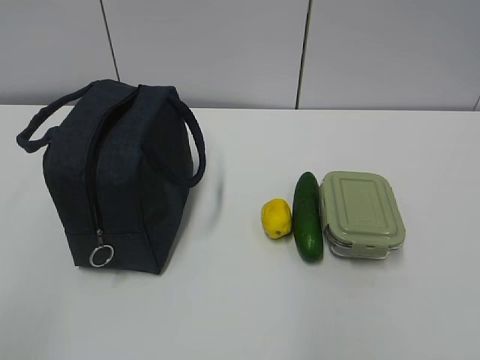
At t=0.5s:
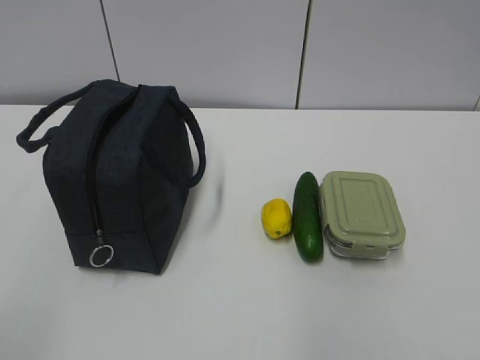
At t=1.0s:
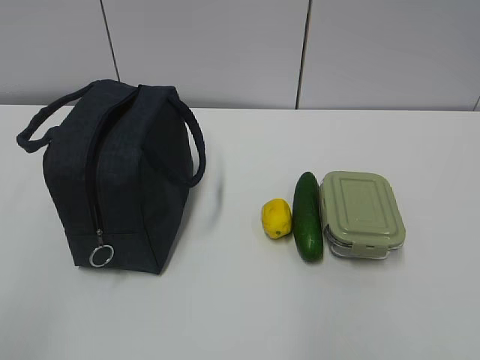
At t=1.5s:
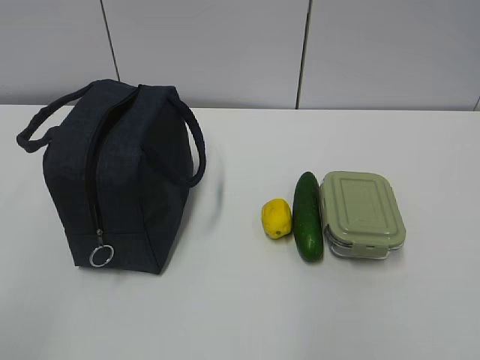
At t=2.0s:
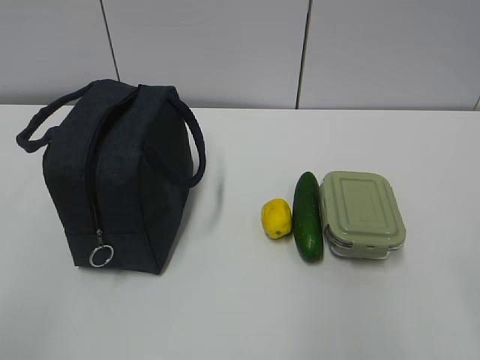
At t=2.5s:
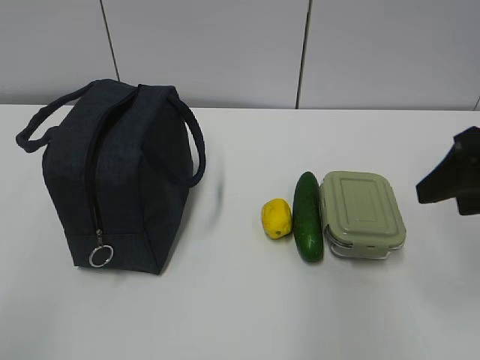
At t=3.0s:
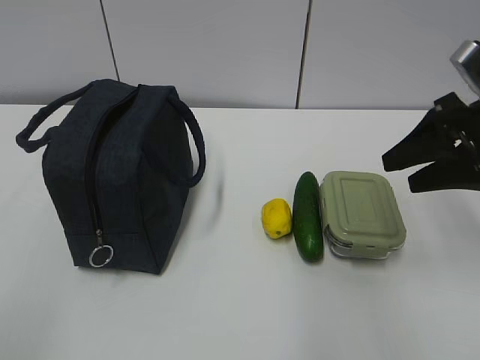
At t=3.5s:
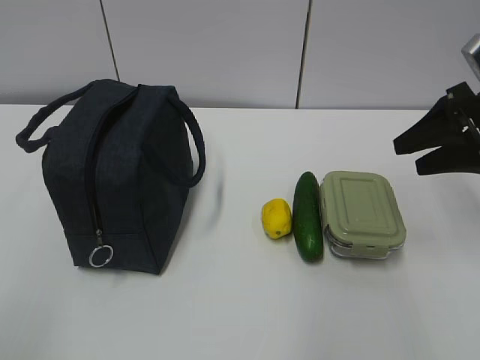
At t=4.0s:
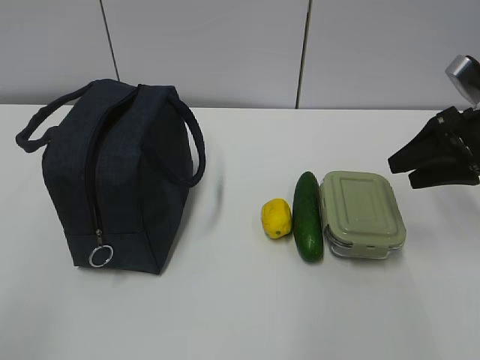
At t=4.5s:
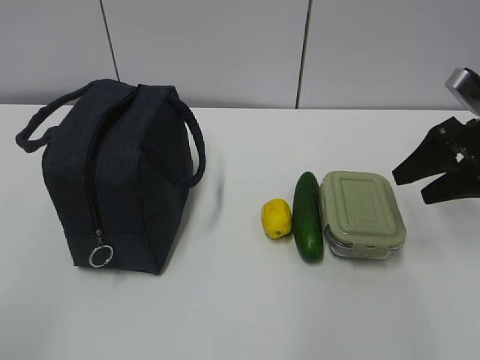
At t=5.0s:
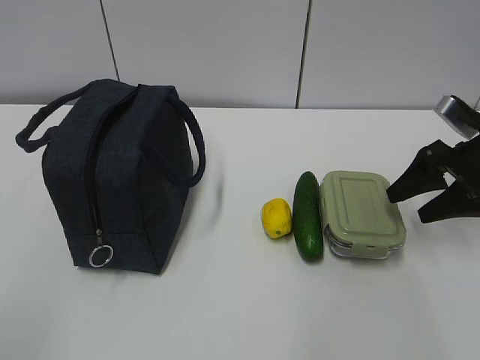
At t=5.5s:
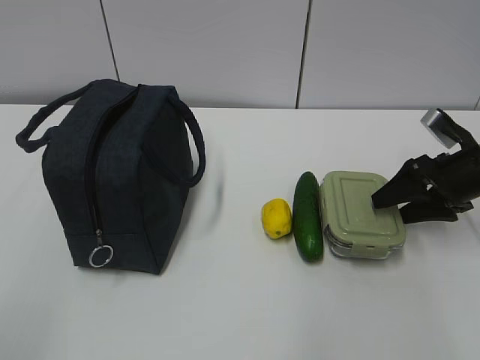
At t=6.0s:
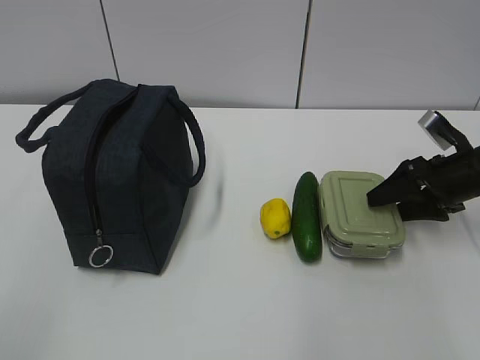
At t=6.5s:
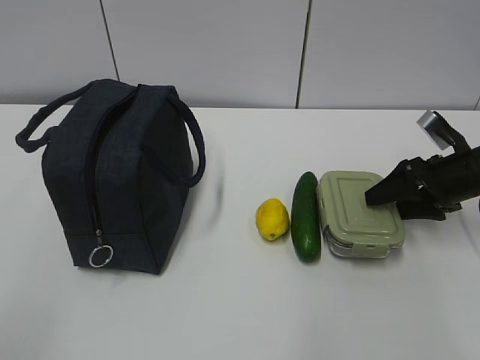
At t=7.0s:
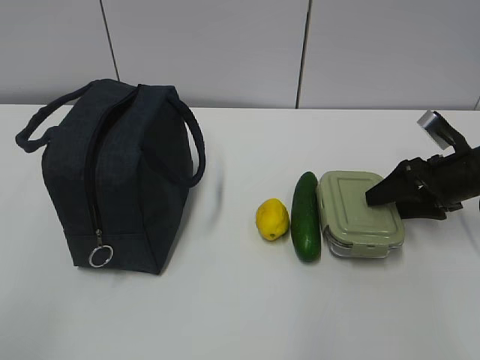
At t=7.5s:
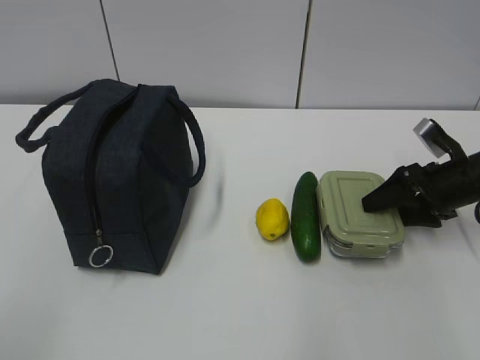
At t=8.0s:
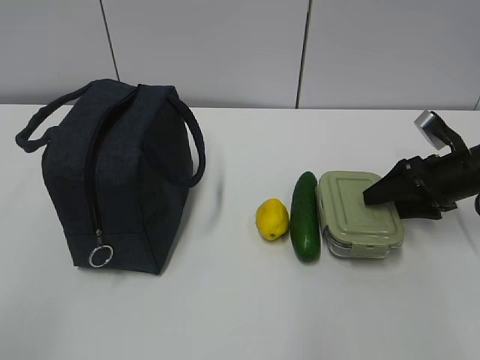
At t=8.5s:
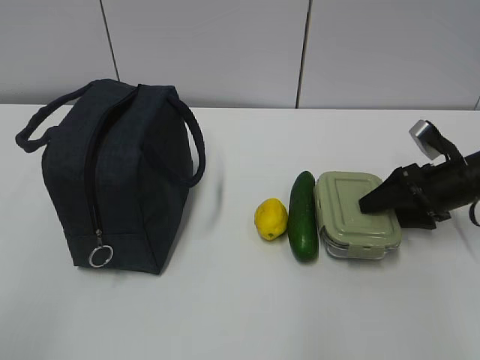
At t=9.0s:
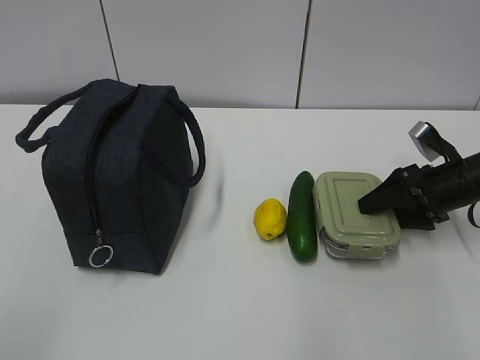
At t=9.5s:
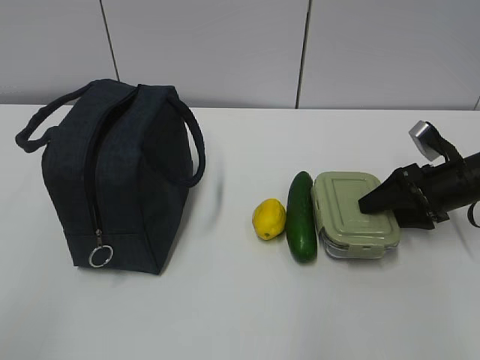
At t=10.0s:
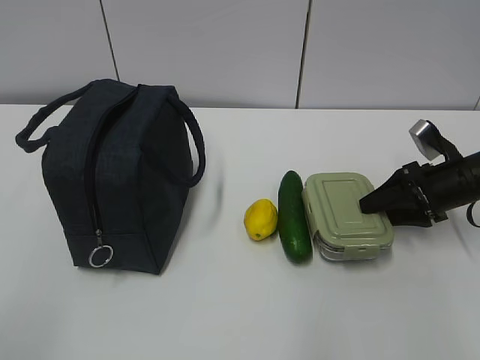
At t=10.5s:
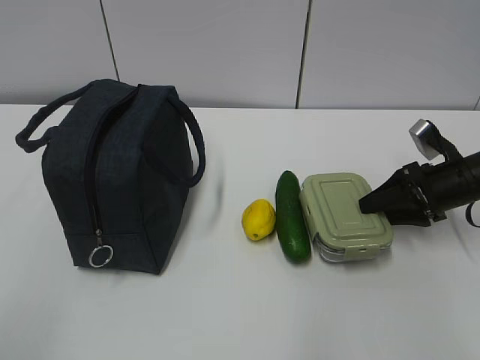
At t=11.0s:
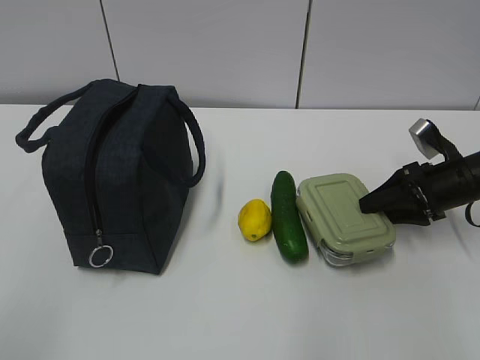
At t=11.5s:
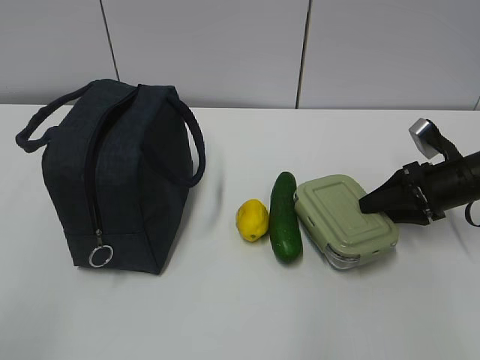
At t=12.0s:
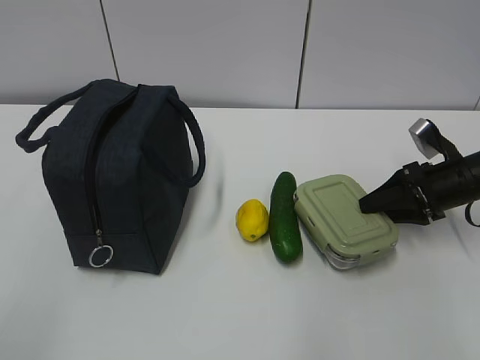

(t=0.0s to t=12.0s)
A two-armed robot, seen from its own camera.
t=2.0s - t=4.0s: The right gripper heads forward, covering about 25 cm.
t=4.0s - t=6.0s: The right gripper moves downward, some 10 cm.
t=6.0s - t=8.0s: Neither gripper changes place.
t=8.0s - t=10.0s: The grippers make only small movements.
t=10.0s - t=12.0s: Both grippers stay about where they are.

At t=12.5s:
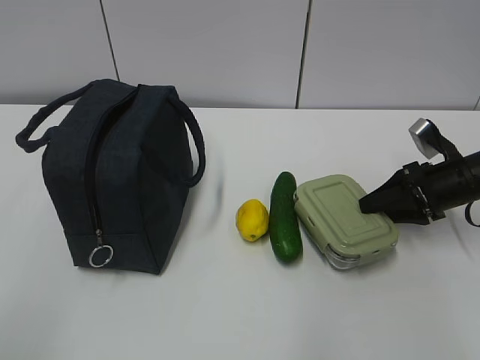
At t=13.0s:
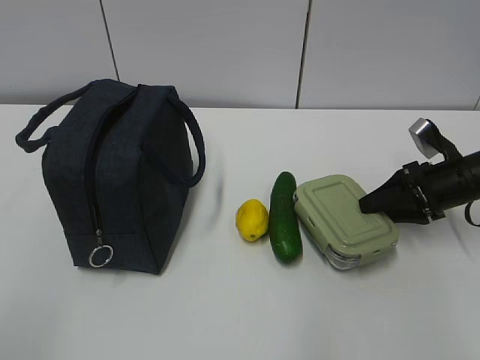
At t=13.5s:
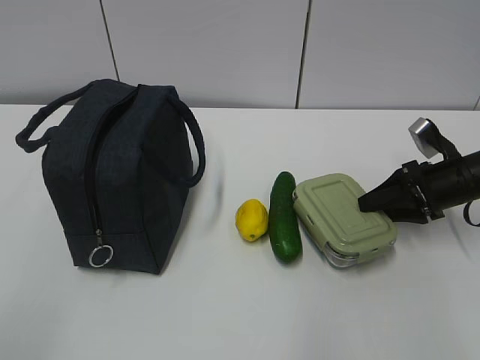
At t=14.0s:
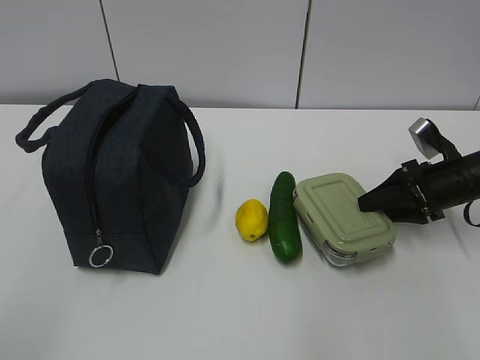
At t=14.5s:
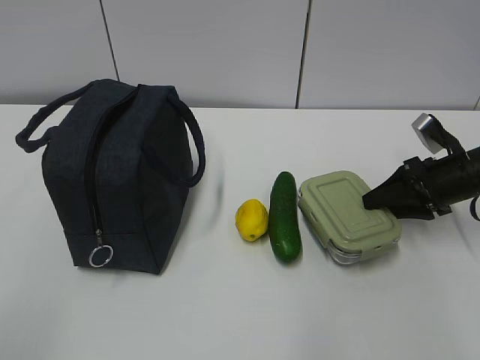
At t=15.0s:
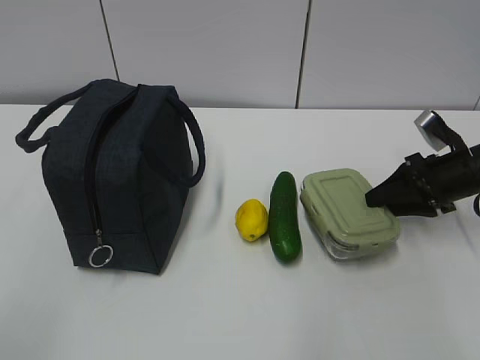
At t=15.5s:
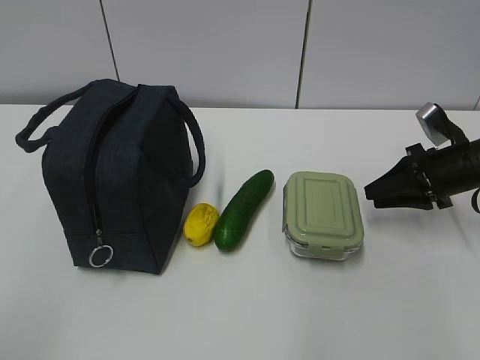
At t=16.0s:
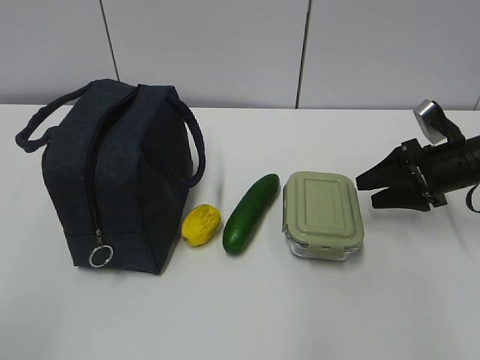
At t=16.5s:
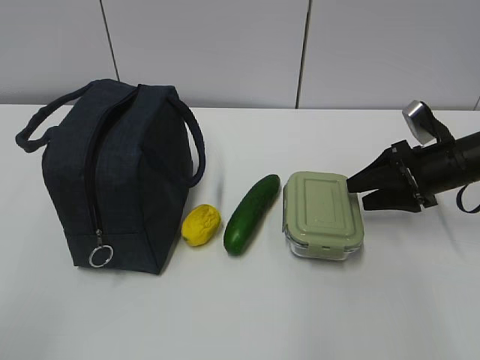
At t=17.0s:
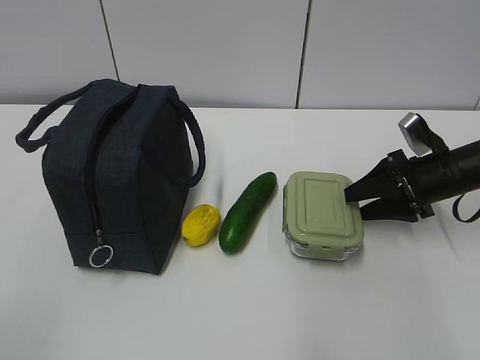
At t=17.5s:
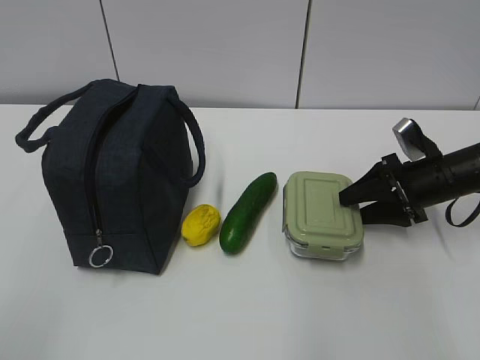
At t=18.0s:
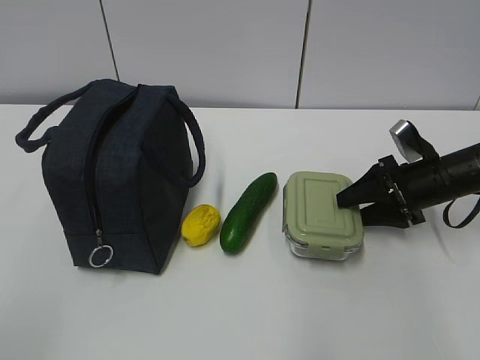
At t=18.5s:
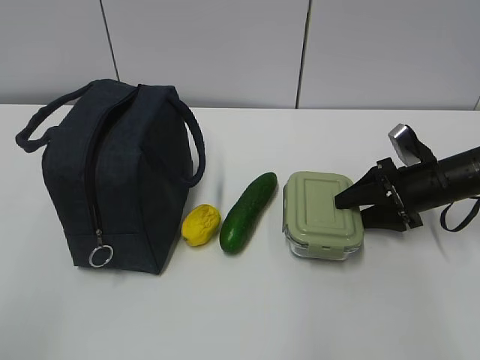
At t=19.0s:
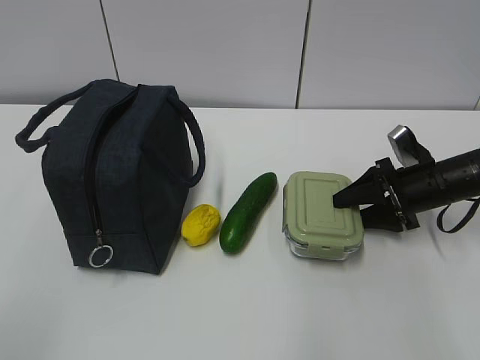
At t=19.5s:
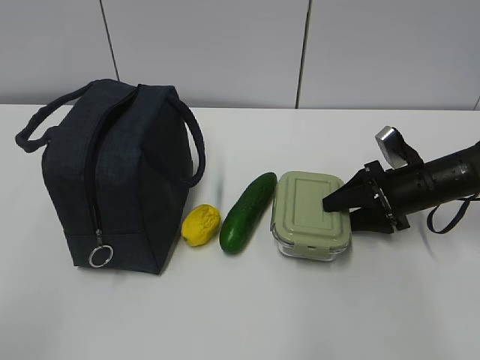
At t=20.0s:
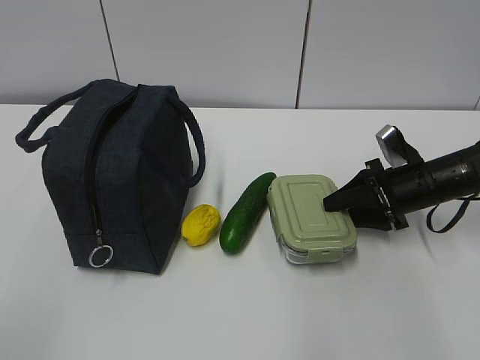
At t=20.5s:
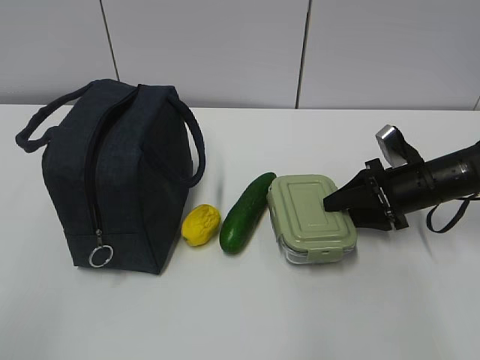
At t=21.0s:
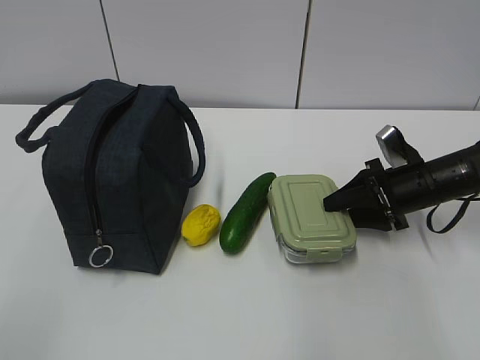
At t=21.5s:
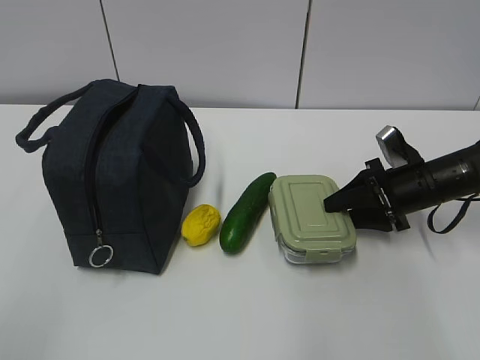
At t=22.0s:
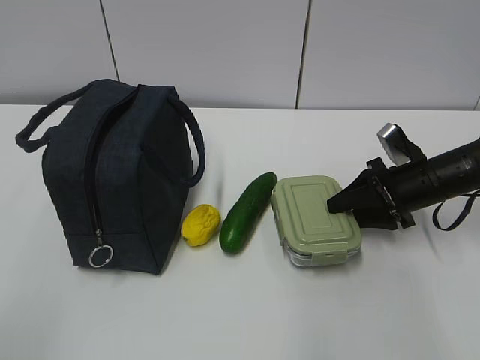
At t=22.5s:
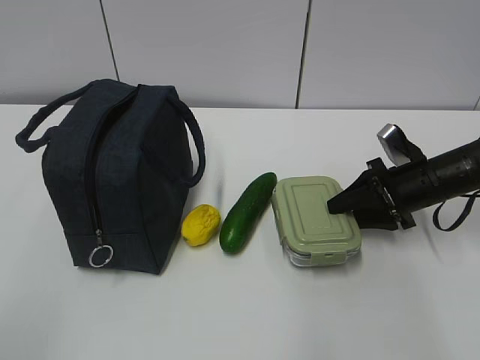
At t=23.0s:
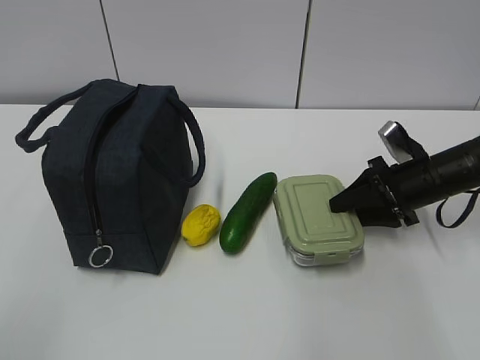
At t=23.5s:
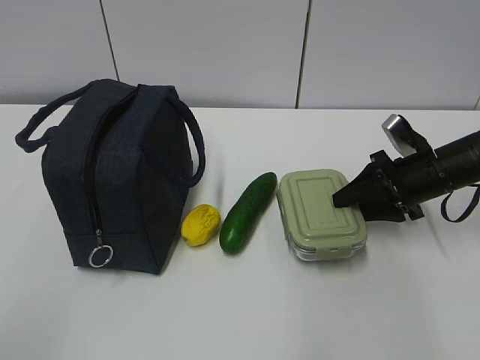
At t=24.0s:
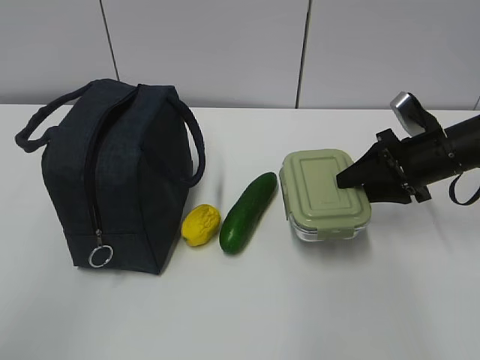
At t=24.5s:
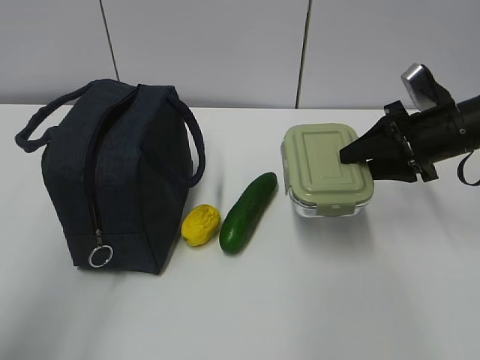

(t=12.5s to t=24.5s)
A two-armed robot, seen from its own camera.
Step, t=12.5s - t=19.0s: Grab the lunch box with your right hand.
t=12.5s - t=14.5s: Neither gripper changes place.
t=14.5s - t=20.5s: The grippers move only a little.
t=20.5s - t=22.5s: Both grippers stay put.
t=22.5s - t=24.5s: The right gripper travels upward by roughly 10 cm. Meanwhile the left gripper heads forward, covering approximately 10 cm.

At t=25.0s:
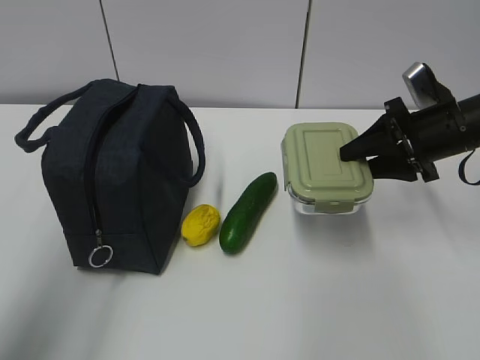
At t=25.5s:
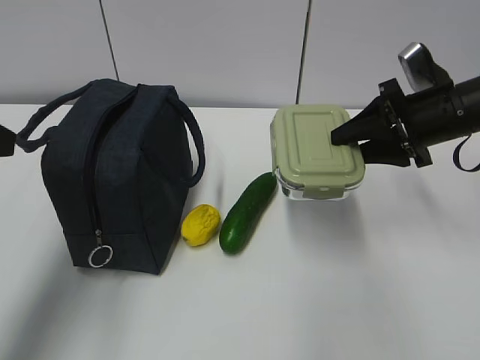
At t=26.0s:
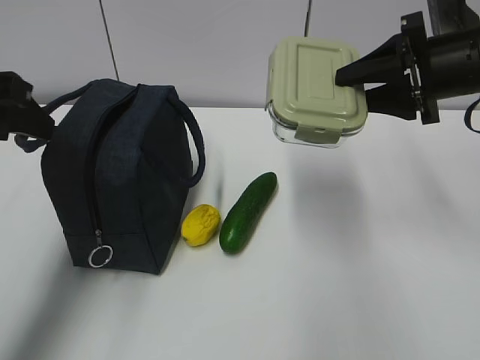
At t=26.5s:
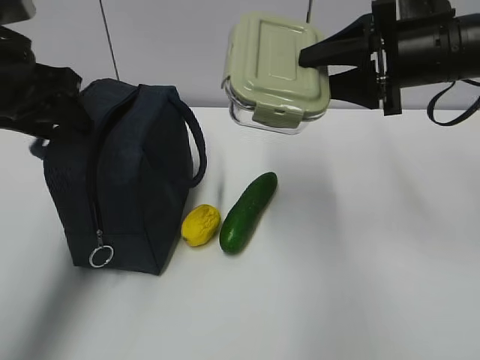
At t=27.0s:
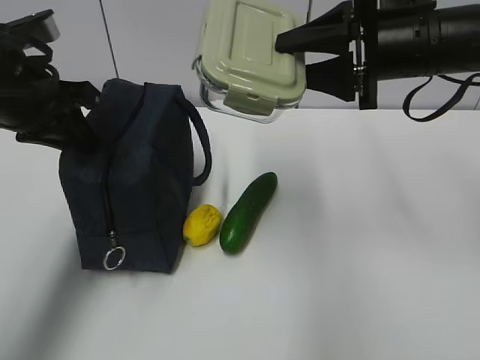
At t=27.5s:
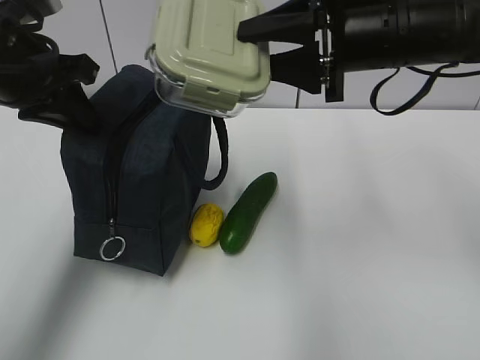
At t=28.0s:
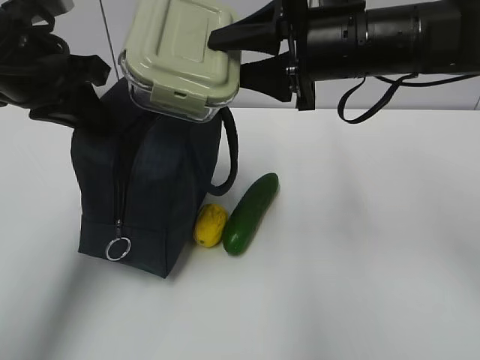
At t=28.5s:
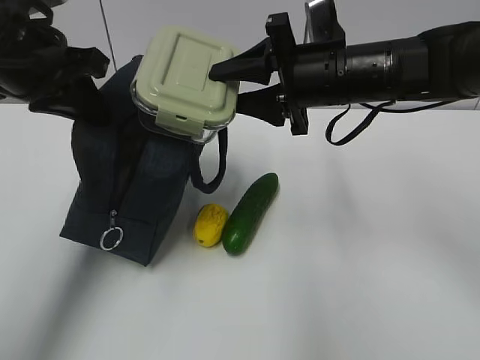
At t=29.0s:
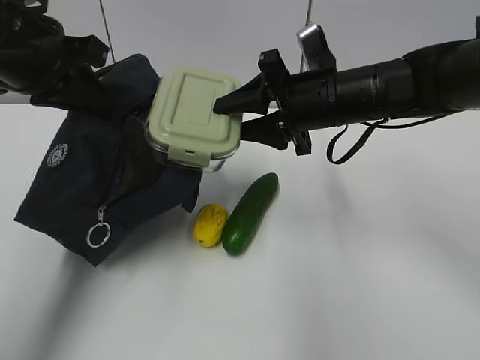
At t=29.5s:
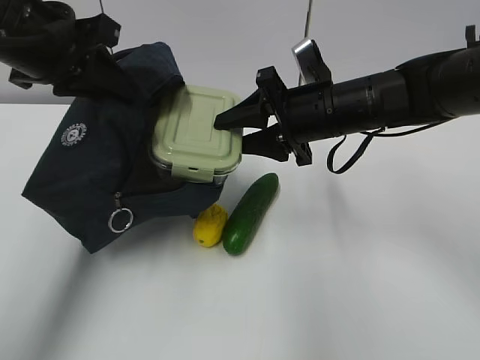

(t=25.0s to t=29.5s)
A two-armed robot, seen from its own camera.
Step, t=25.0s - t=27.5s: Place it into the bag with your right hand.
t=25.0s - t=27.0s: The right gripper shifts some 15 cm upward and to the left, while the left gripper moves forward, approximately 20 cm, and closes up.
t=27.0s - t=29.5s: The left gripper changes place by roughly 5 cm; the right gripper heads downward and to the left, covering some 10 cm.
